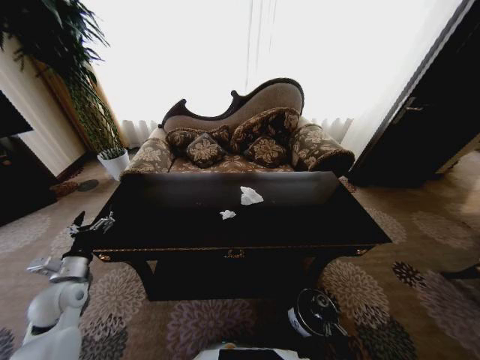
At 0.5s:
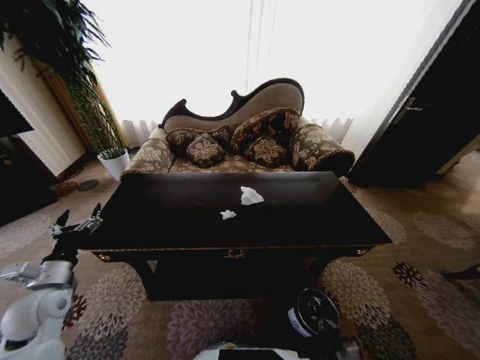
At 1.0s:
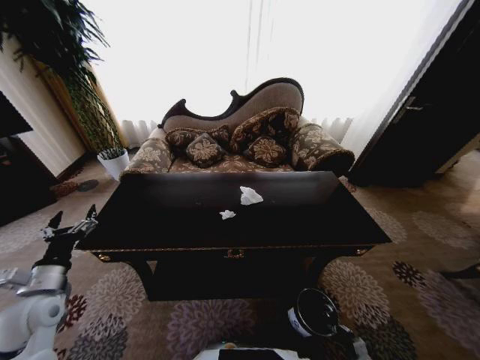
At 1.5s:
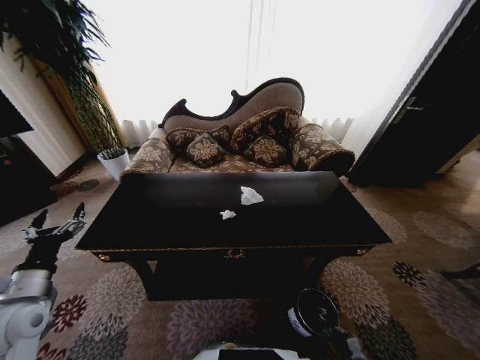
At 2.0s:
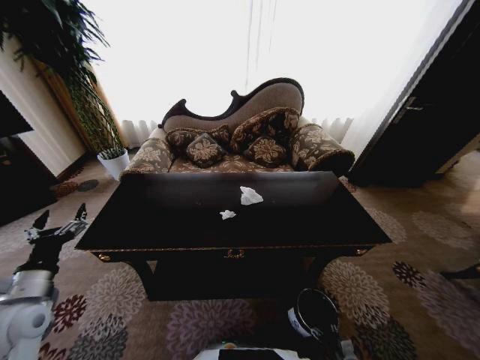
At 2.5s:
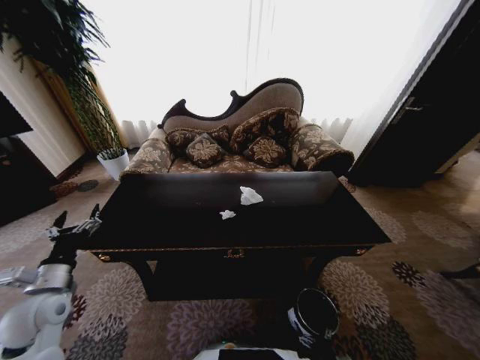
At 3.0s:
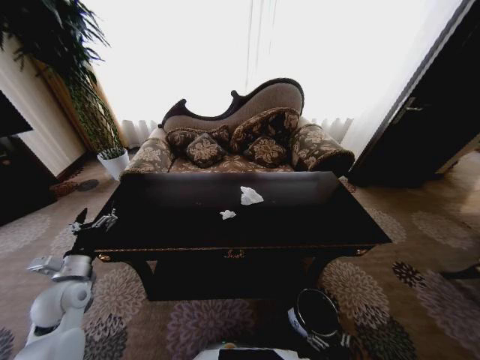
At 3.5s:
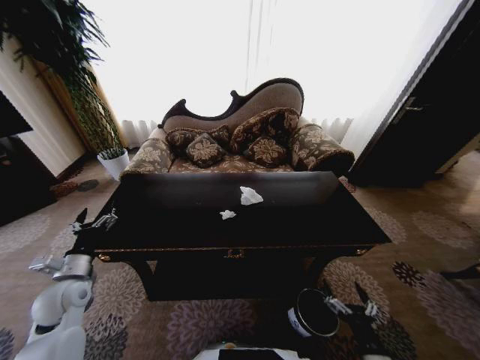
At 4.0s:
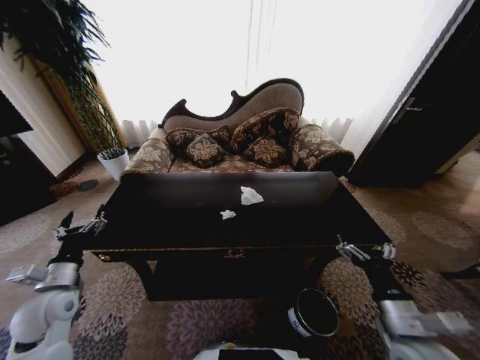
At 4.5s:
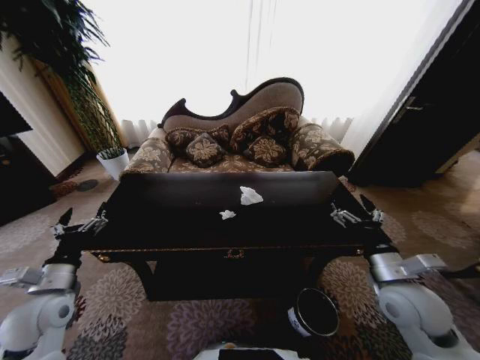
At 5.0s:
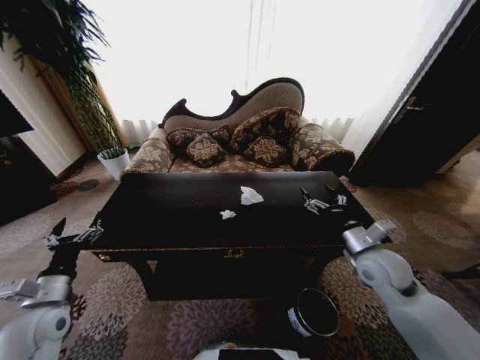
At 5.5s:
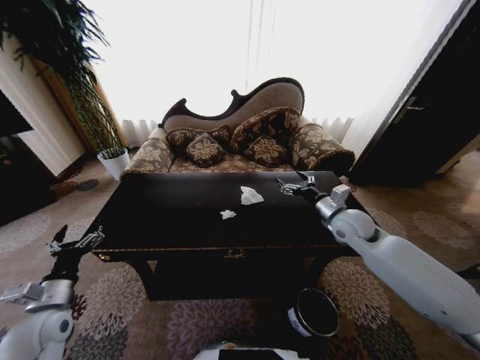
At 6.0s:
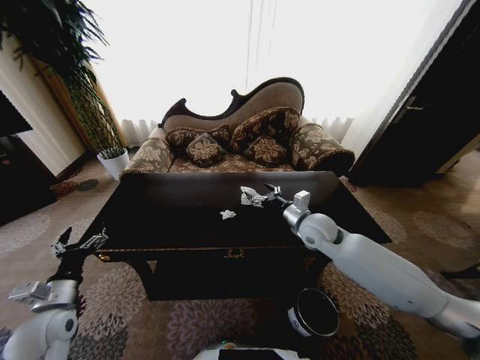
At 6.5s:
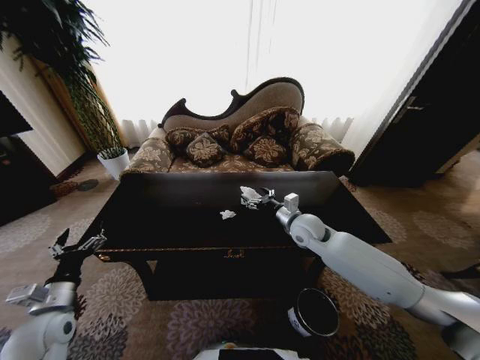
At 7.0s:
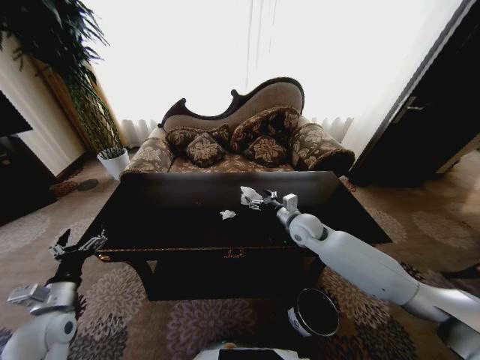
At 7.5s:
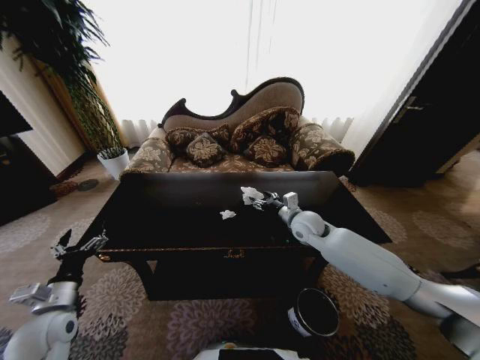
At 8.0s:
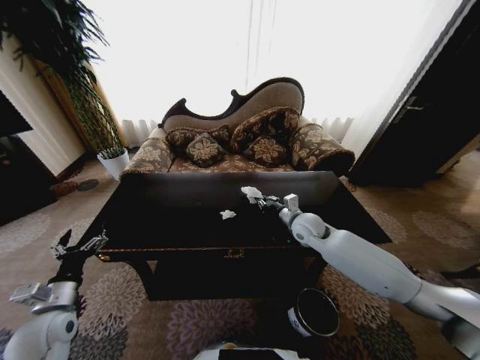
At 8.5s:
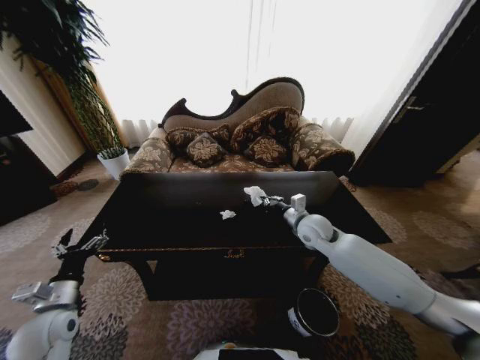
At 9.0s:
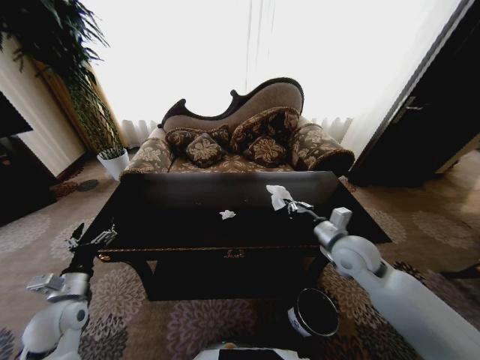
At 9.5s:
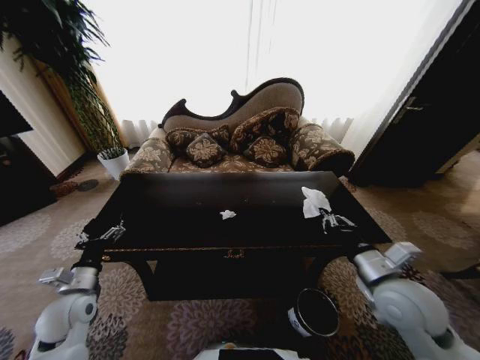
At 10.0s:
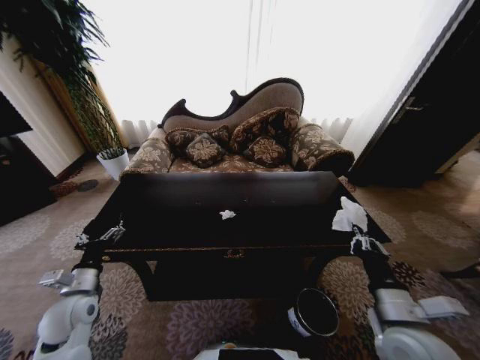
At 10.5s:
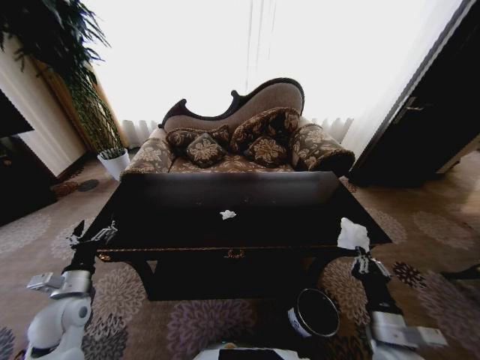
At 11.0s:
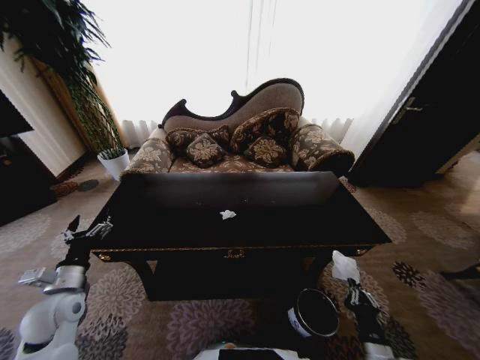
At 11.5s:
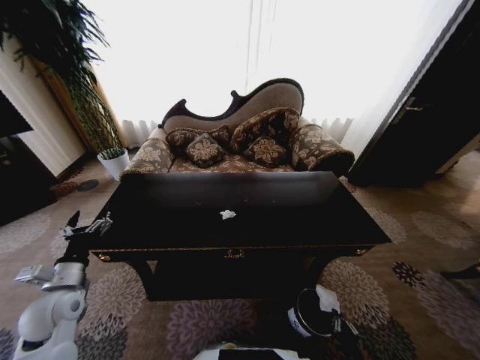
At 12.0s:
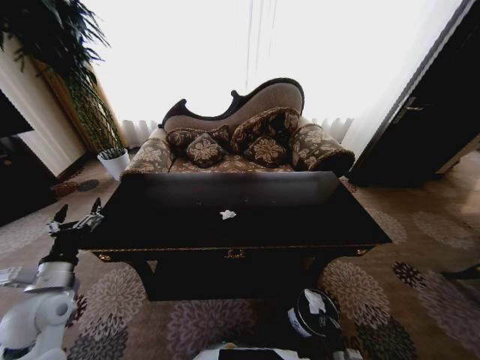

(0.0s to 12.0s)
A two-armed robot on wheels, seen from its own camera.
Task of the whole recording: Move to the front of the table and place the trash on the table into the trash bin.
0.0s - 2.0s: The left gripper moves backward and upward, some 10 cm.
2.0s - 4.0s: The right gripper is displaced upward by some 40 cm, and opens its fingers.
4.0s - 6.0s: The right gripper heads forward, covering about 25 cm.
6.0s - 8.0s: The right gripper shifts by approximately 5 cm, and closes.
8.0s - 10.0s: The right gripper heads backward, covering approximately 30 cm.
10.0s - 12.0s: The right gripper goes roughly 40 cm downward, while the left gripper is displaced upward by approximately 5 cm.

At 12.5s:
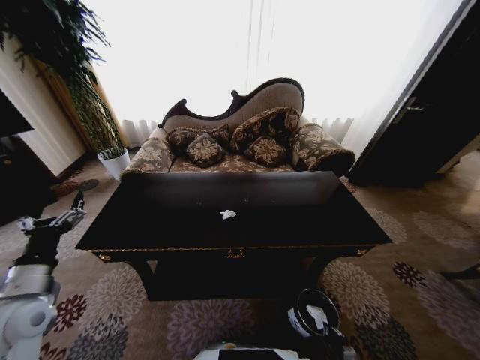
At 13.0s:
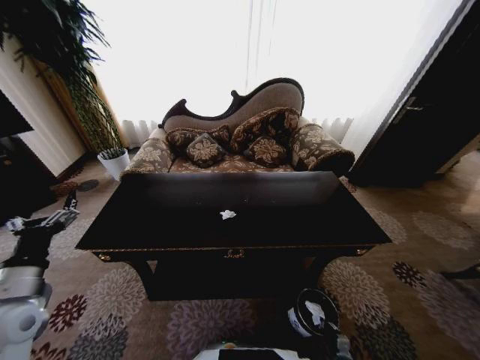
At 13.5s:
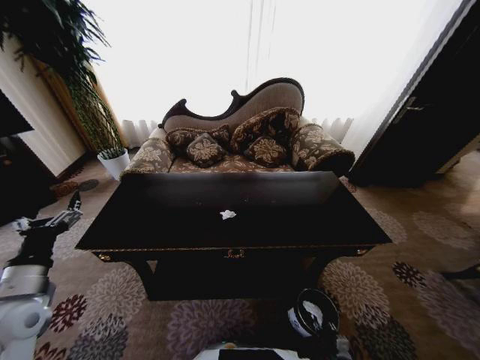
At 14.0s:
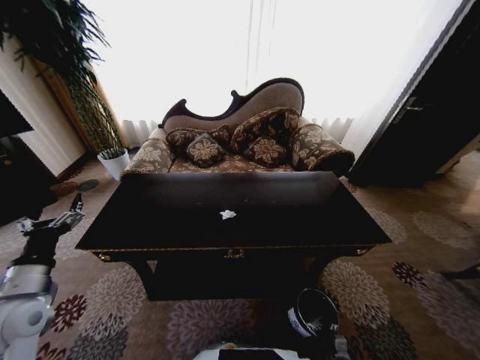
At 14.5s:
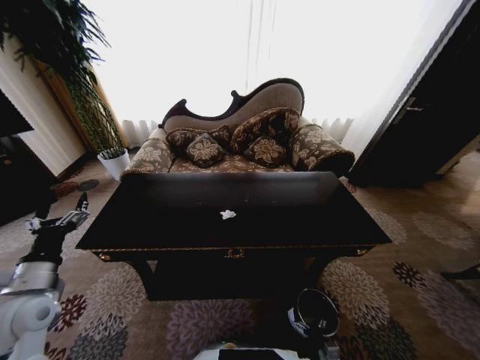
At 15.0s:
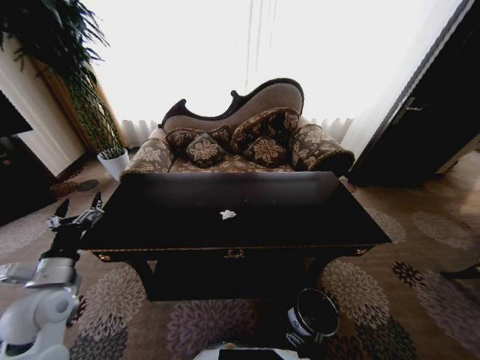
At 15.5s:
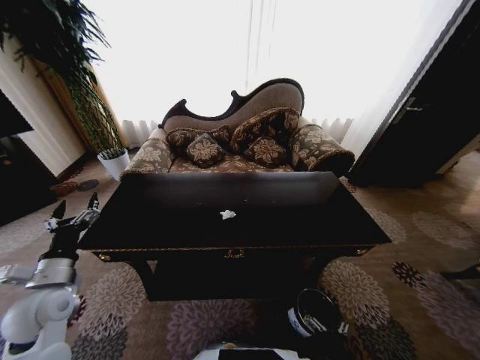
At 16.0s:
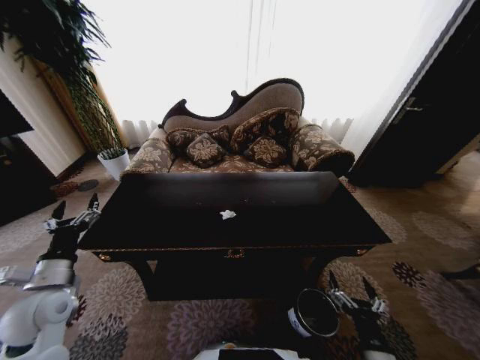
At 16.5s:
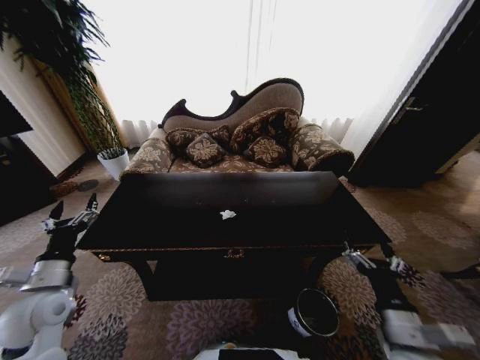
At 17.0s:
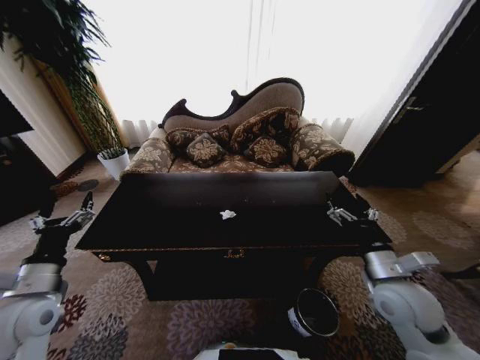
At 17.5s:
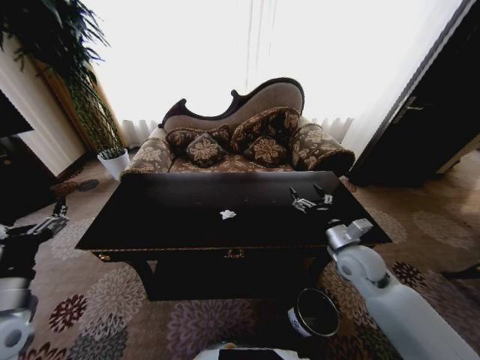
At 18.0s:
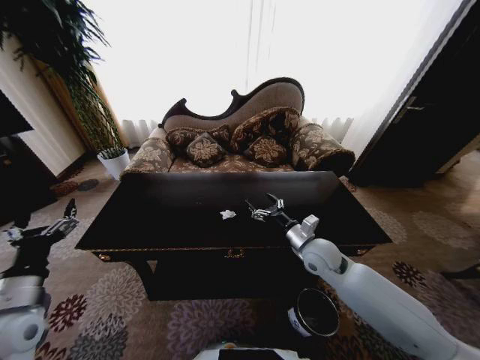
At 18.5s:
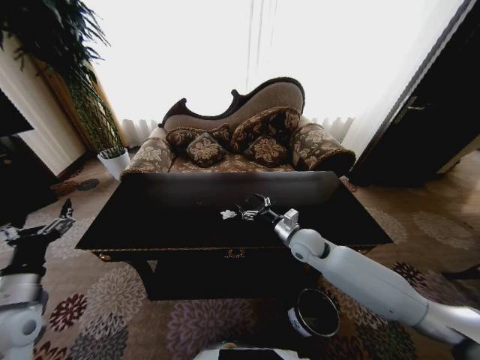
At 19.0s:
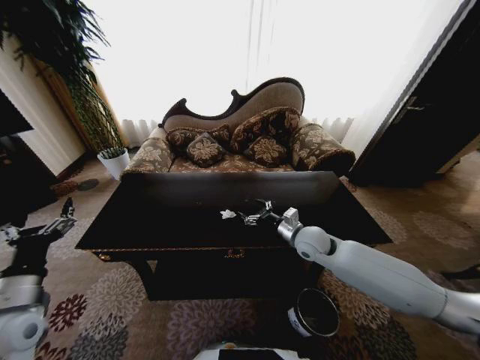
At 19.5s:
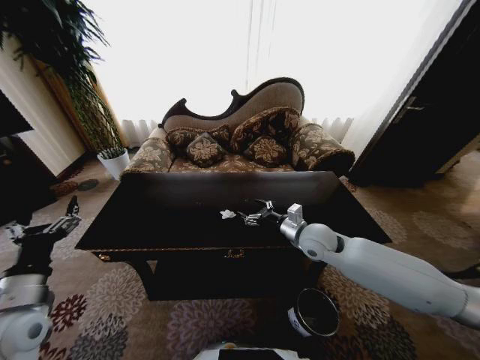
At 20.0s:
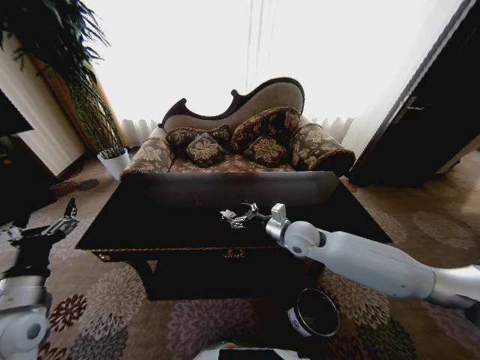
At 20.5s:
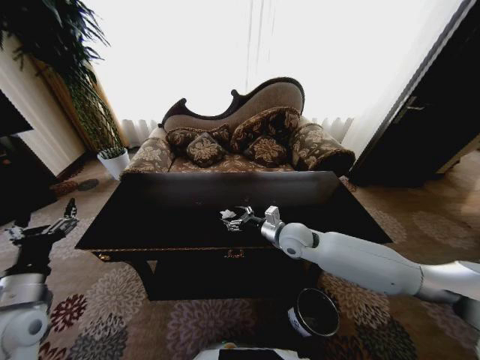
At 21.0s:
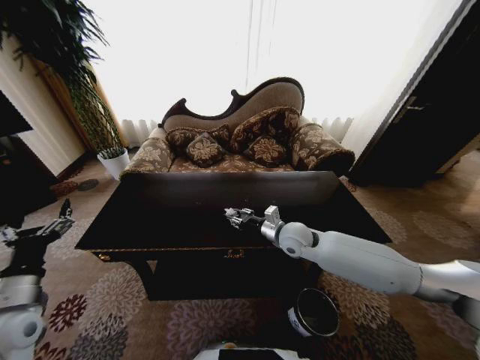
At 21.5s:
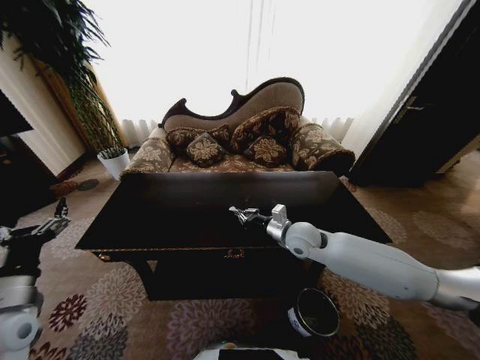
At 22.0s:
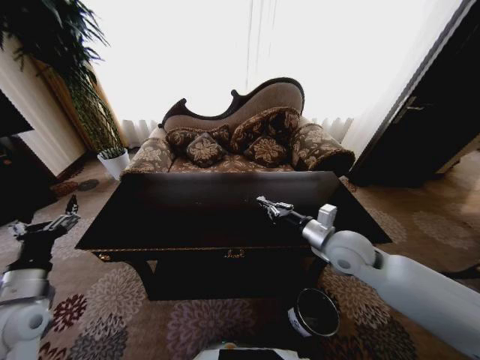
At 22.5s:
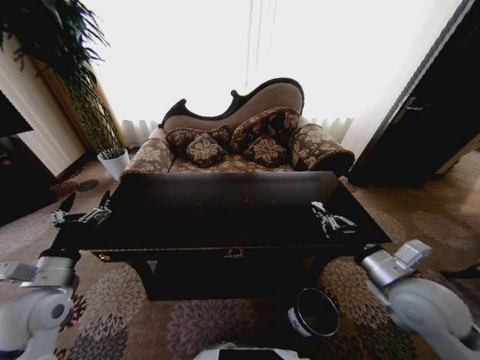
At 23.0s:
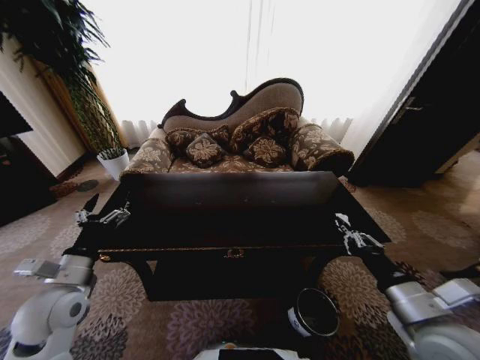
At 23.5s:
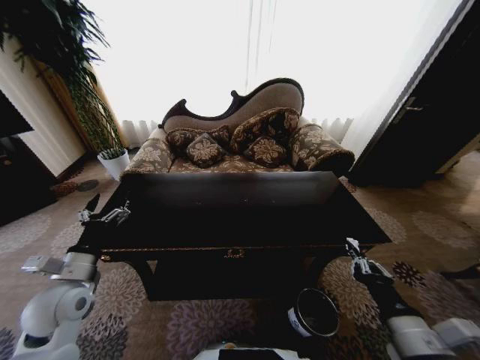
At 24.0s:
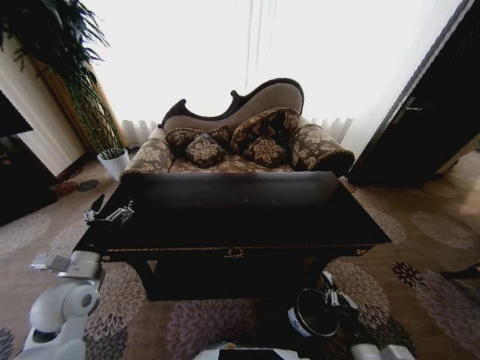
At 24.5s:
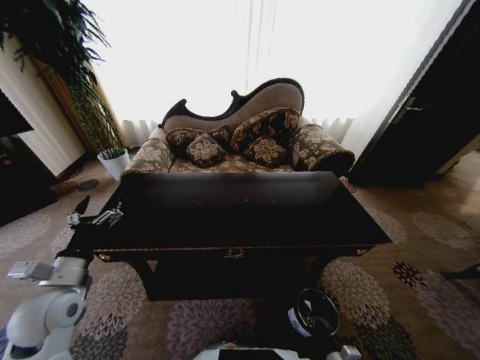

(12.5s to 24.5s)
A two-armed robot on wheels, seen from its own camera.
Task of the whole recording: Move to the front of the table and place the trash on the table into the trash bin.
14.5s - 16.5s: The right gripper travels upward by some 40 cm.
16.5s - 18.5s: The right gripper shifts approximately 30 cm forward.
18.5s - 20.5s: The right gripper moves approximately 5 cm.
20.5s - 22.5s: The right gripper is displaced backward and to the right by approximately 25 cm, and closes up.
22.5s - 24.5s: The right gripper is displaced downward and backward by approximately 35 cm.

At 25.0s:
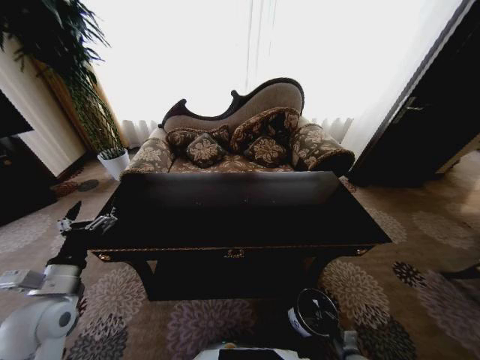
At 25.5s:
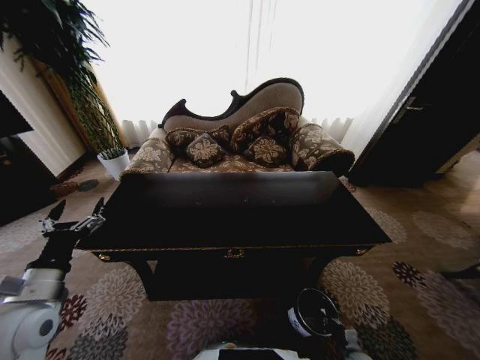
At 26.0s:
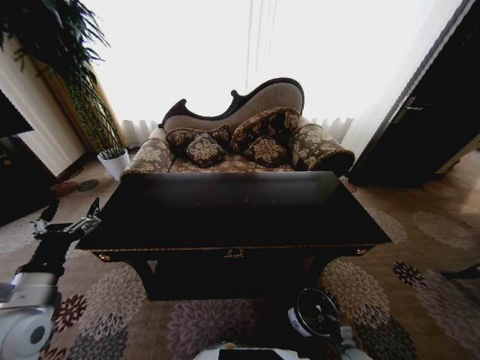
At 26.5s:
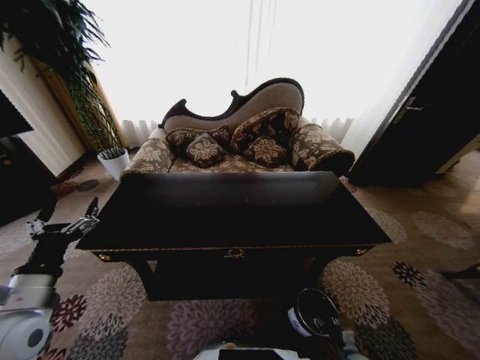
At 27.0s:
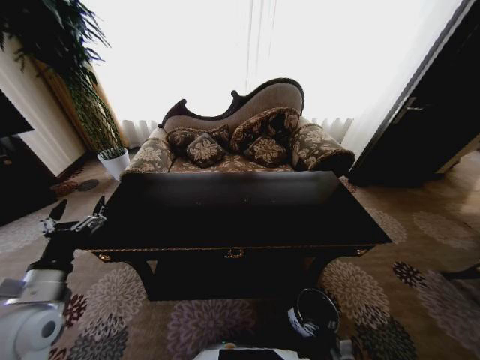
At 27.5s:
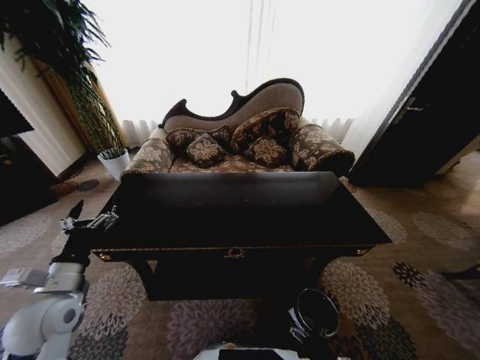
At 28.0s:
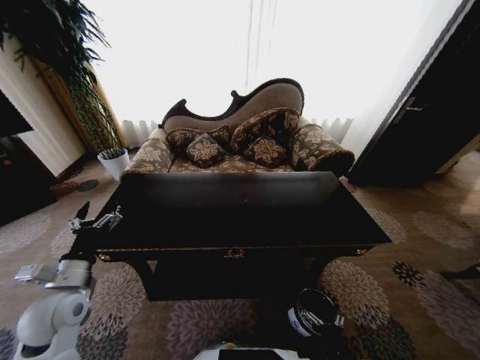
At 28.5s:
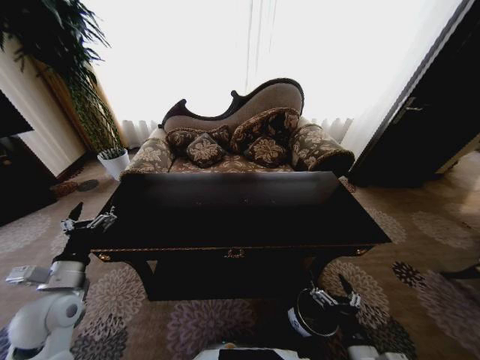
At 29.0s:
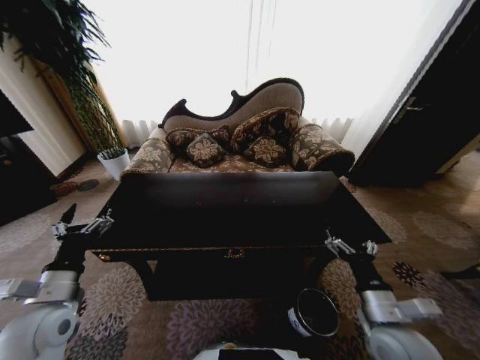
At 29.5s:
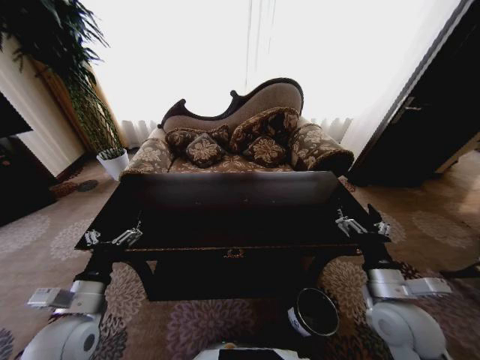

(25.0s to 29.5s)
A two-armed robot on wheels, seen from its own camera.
Task of the whole recording: Move to the front of the table and place the trash on the table into the trash bin.
27.0s - 29.5s: The right gripper is displaced upward by roughly 40 cm; the left gripper goes some 5 cm to the right.
